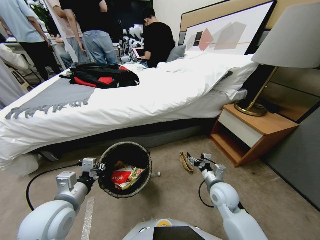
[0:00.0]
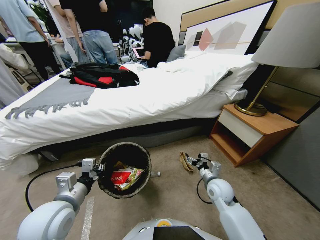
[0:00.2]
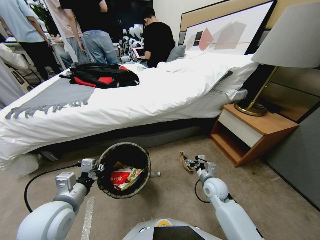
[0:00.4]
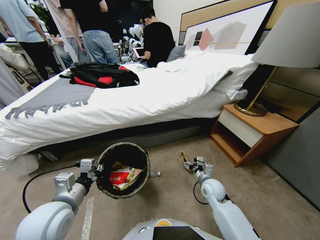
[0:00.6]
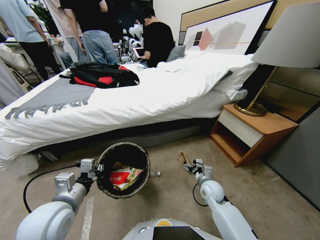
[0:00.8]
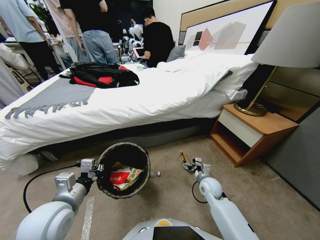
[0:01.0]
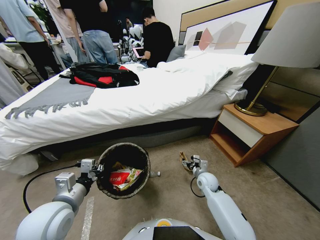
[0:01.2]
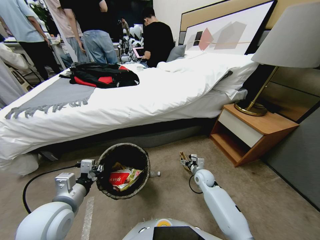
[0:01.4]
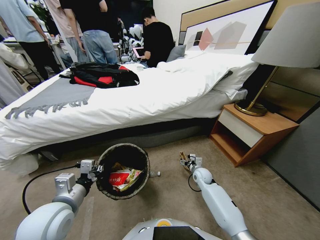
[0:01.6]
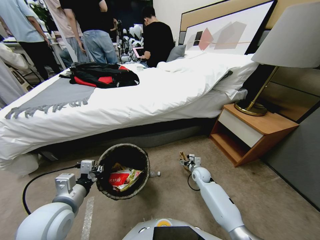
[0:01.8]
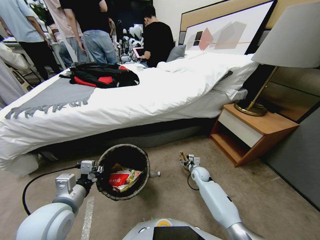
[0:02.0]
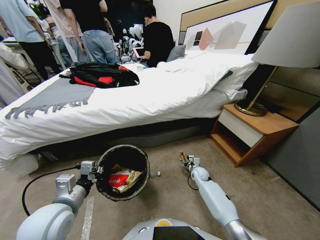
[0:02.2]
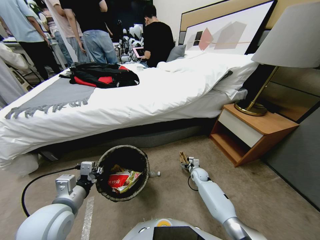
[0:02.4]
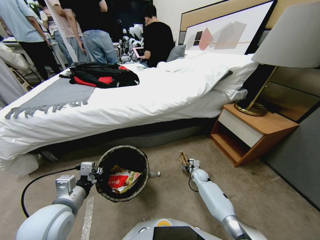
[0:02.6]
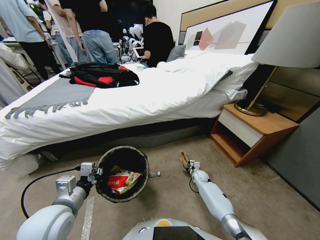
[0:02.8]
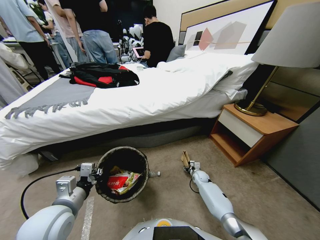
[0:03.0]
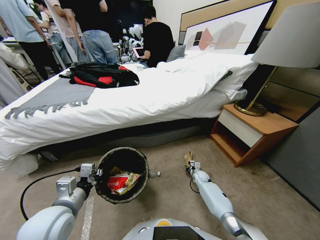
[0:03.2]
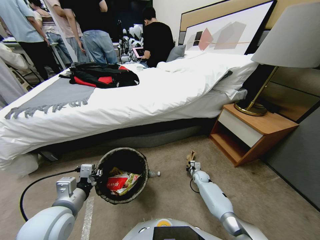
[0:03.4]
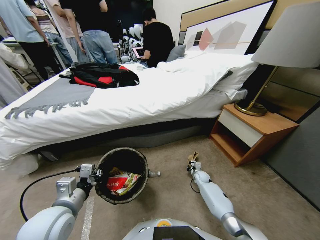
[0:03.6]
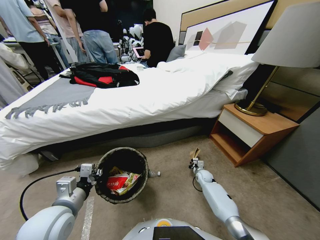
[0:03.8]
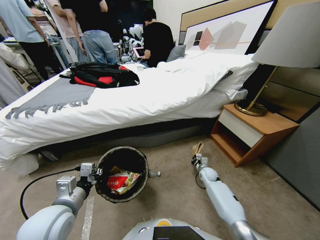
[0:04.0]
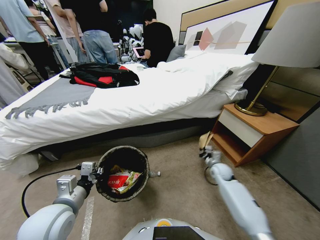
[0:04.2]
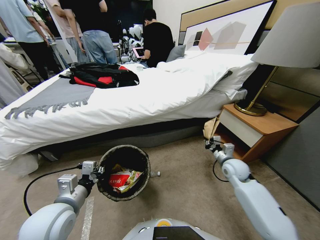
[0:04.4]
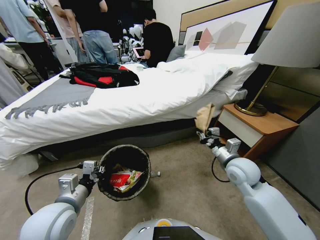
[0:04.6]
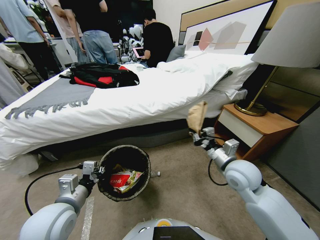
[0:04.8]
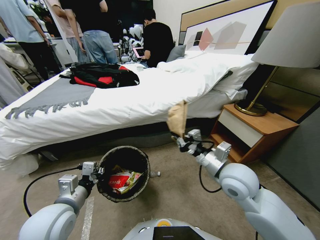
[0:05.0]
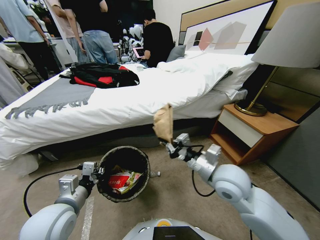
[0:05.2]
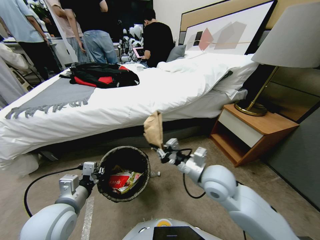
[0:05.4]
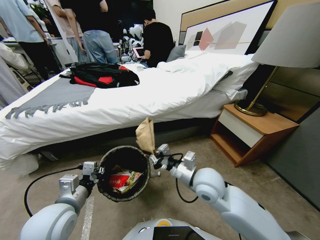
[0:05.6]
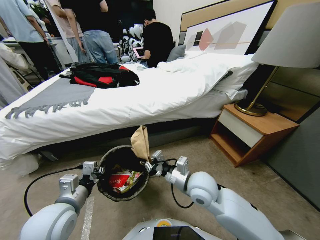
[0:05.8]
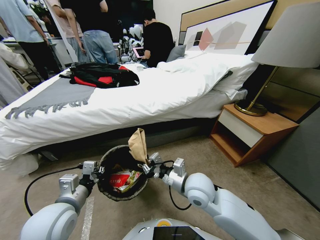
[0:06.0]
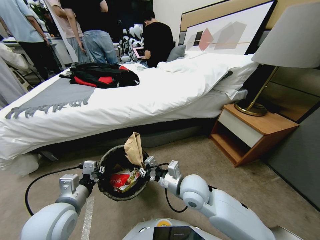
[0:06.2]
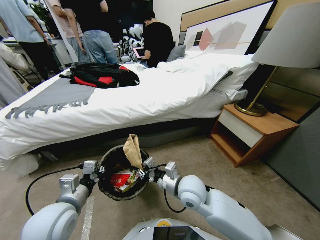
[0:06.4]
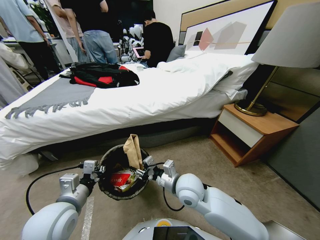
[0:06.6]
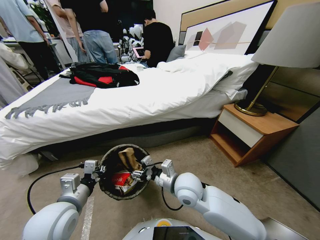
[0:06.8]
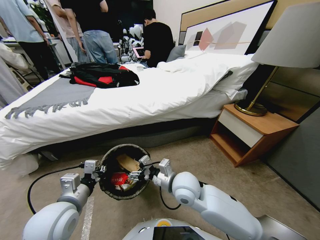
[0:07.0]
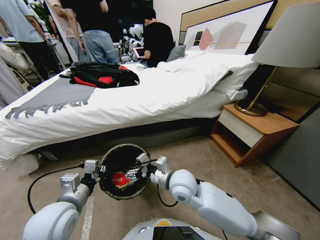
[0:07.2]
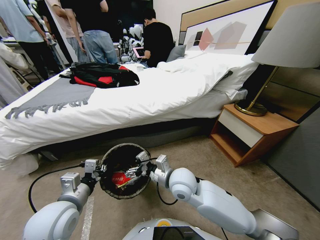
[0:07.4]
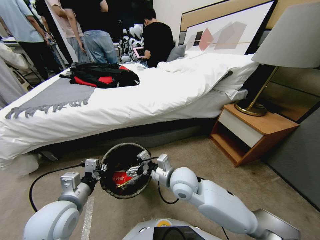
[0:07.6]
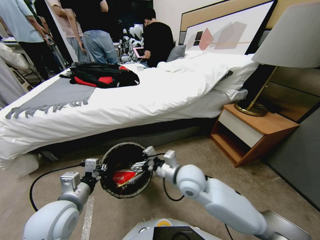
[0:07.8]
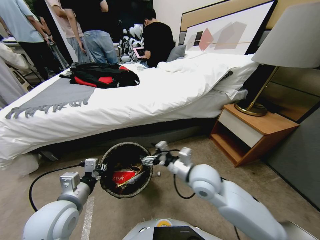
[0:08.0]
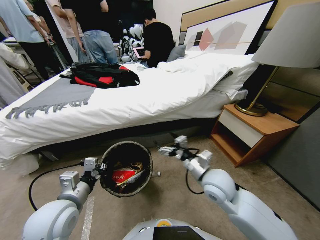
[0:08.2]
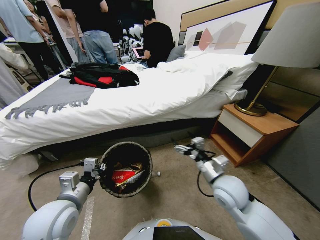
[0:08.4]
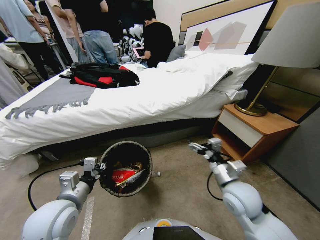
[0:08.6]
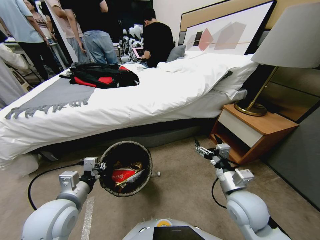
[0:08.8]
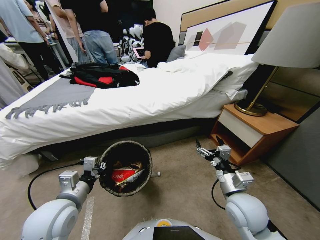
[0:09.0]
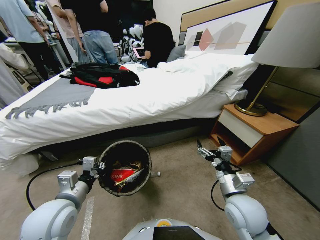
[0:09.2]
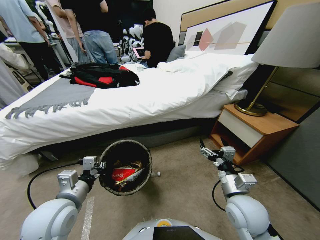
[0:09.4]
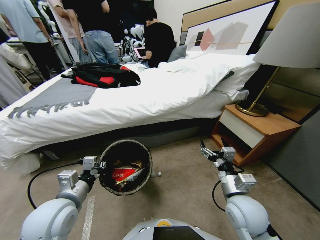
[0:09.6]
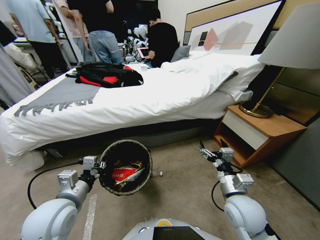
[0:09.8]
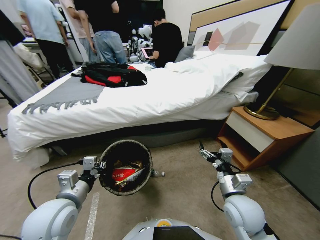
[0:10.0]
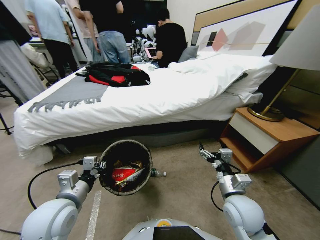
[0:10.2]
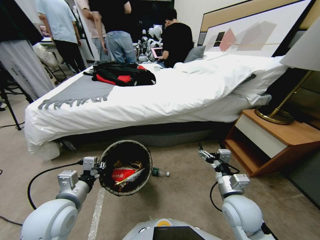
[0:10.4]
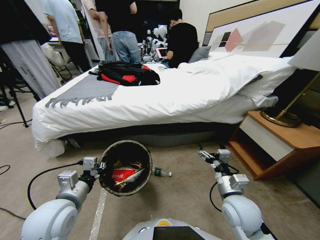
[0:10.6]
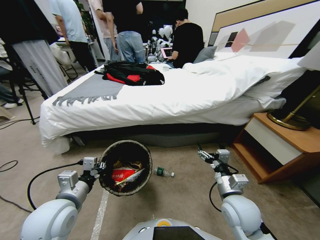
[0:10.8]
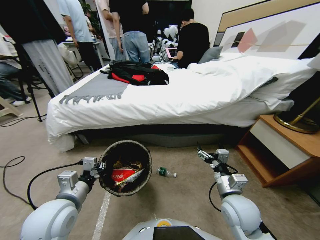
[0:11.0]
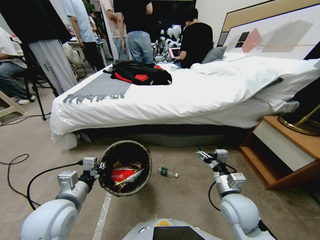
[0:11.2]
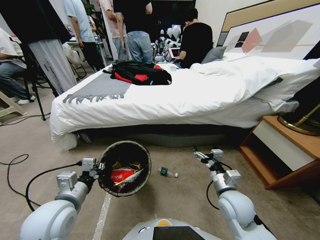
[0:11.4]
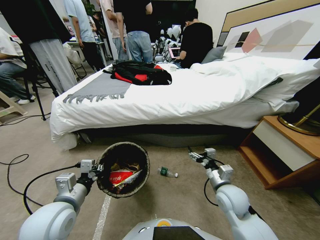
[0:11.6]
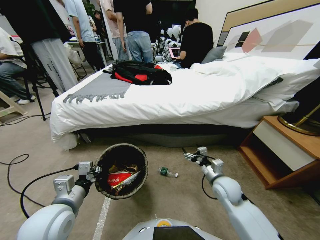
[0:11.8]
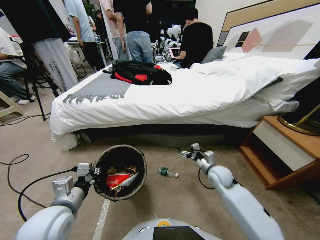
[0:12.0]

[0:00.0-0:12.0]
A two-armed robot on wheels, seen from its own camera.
Task of the whole recording: Pick up the trash bin, then pick up the garbage from the floor and place it into the trash bin.
0:00.0 to 0:01.6: The right gripper travels downward and forward by some 15 cm.
0:01.6 to 0:03.0: The right gripper travels downward by some 10 cm, and closes up.
0:03.0 to 0:04.4: The right gripper shifts approximately 30 cm upward, and closes.
0:04.4 to 0:06.0: The right gripper moves to the left, approximately 20 cm.
0:06.0 to 0:07.6: The right gripper opens up.
0:07.6 to 0:09.0: The right gripper heads to the right and backward, covering about 20 cm.
0:10.4 to 0:12.0: The right gripper moves forward and downward, some 20 cm.

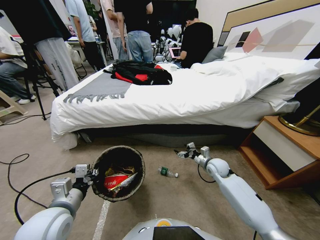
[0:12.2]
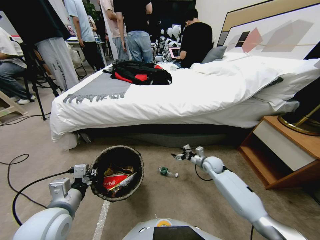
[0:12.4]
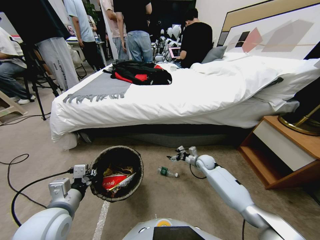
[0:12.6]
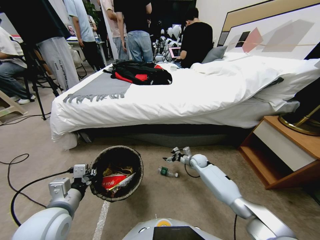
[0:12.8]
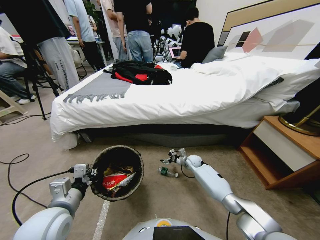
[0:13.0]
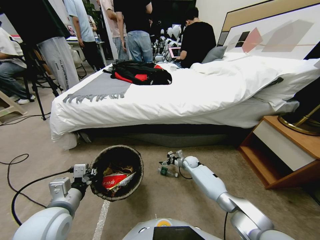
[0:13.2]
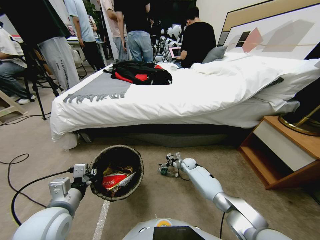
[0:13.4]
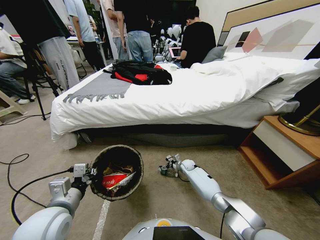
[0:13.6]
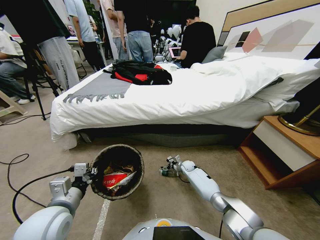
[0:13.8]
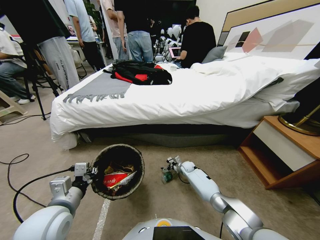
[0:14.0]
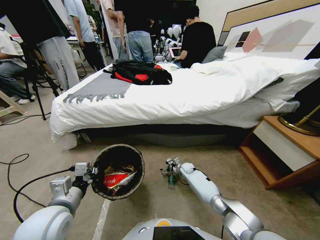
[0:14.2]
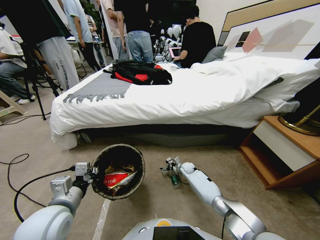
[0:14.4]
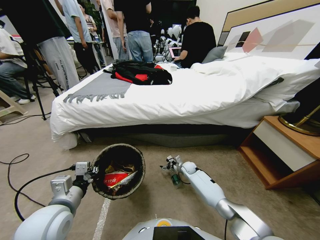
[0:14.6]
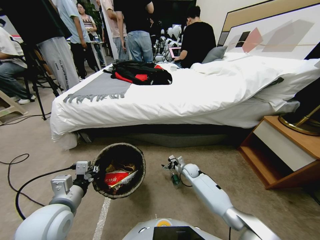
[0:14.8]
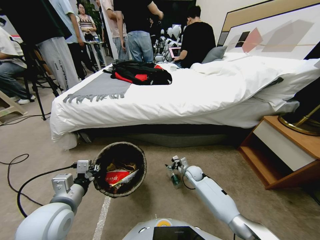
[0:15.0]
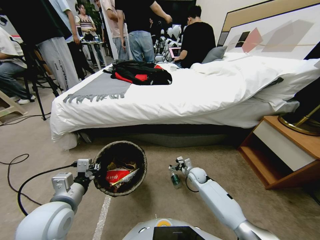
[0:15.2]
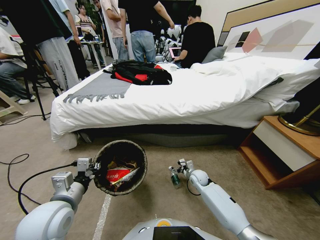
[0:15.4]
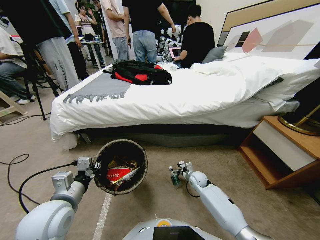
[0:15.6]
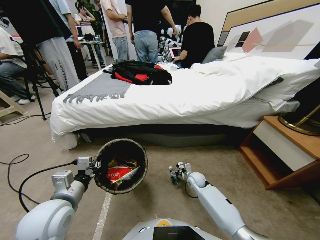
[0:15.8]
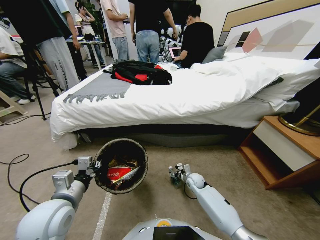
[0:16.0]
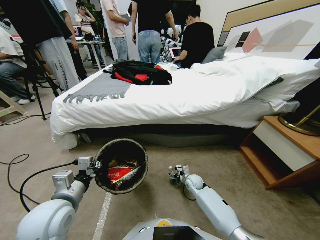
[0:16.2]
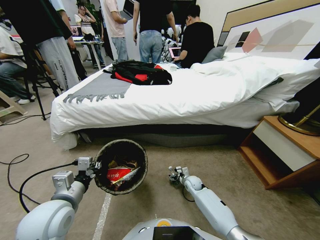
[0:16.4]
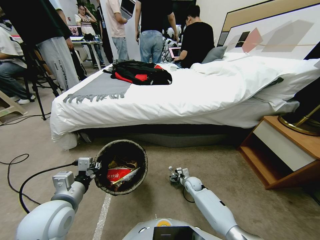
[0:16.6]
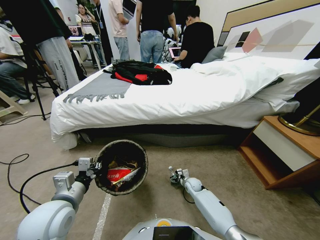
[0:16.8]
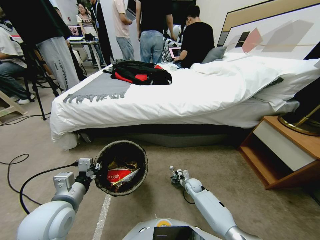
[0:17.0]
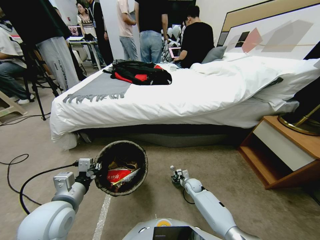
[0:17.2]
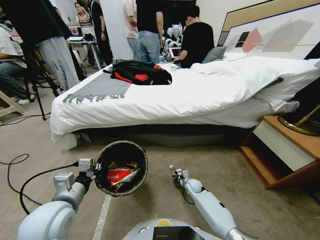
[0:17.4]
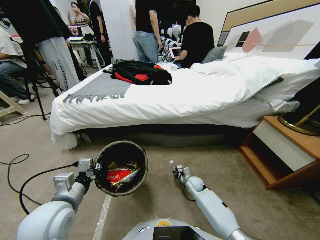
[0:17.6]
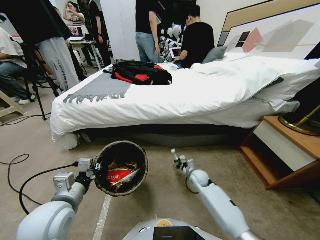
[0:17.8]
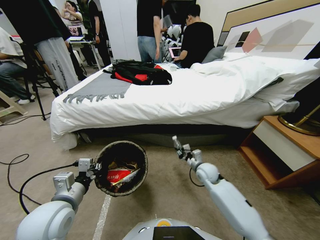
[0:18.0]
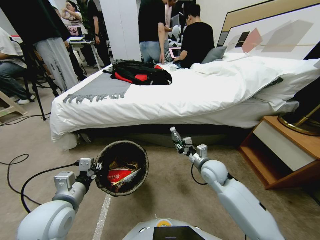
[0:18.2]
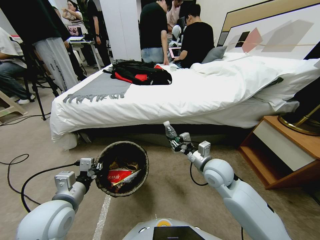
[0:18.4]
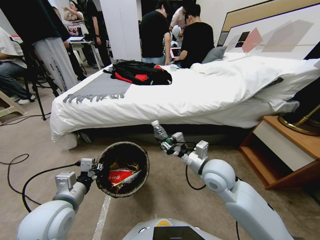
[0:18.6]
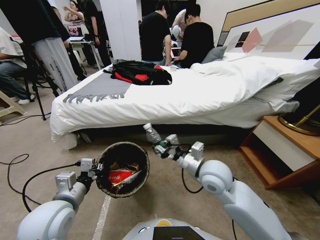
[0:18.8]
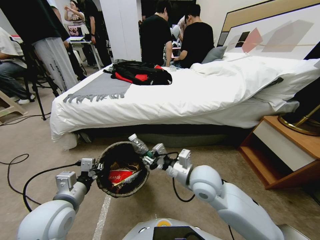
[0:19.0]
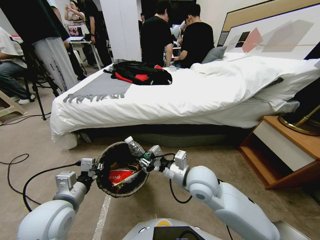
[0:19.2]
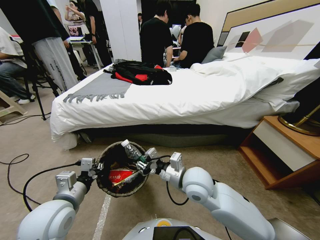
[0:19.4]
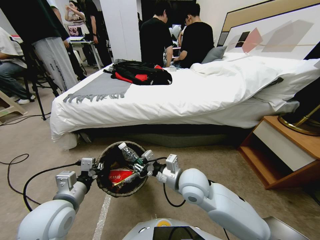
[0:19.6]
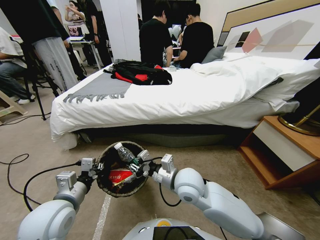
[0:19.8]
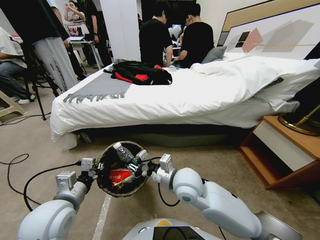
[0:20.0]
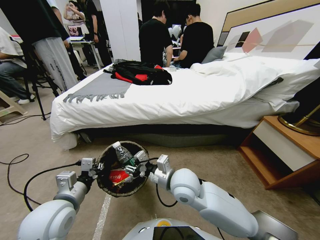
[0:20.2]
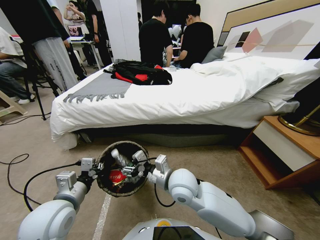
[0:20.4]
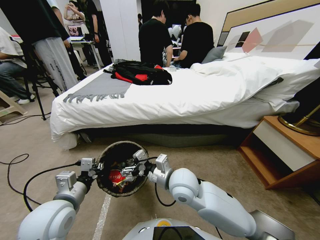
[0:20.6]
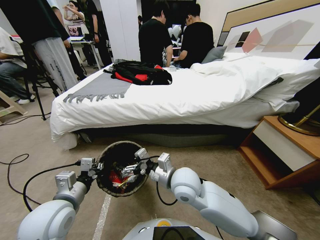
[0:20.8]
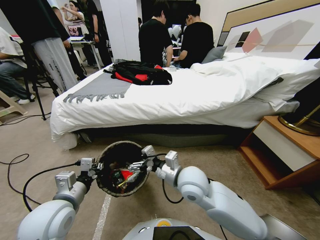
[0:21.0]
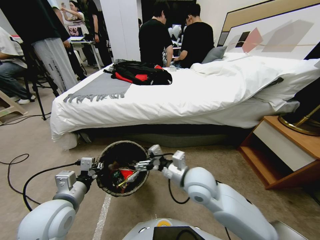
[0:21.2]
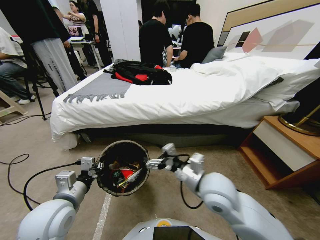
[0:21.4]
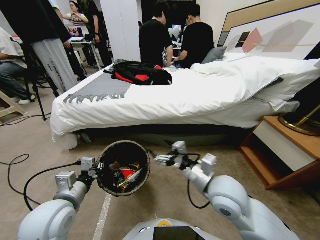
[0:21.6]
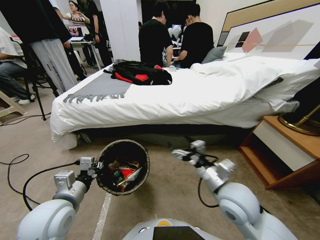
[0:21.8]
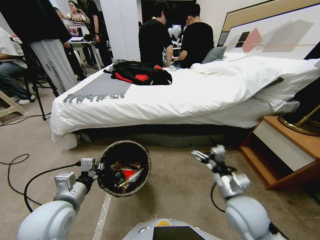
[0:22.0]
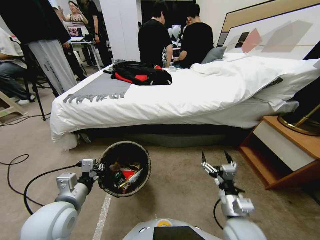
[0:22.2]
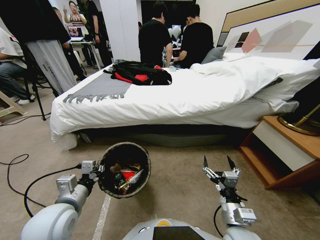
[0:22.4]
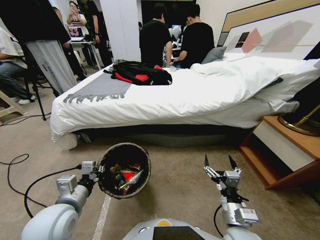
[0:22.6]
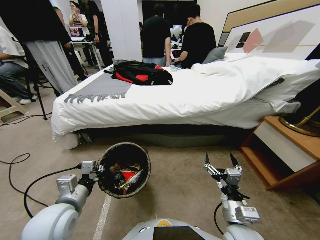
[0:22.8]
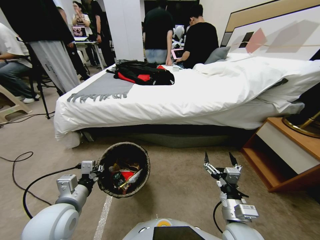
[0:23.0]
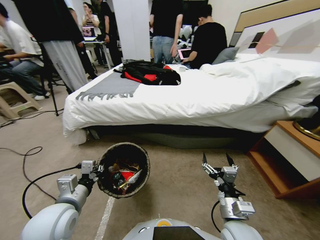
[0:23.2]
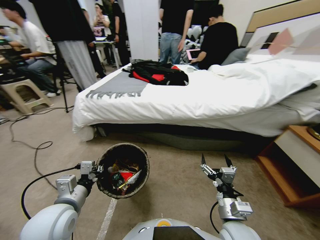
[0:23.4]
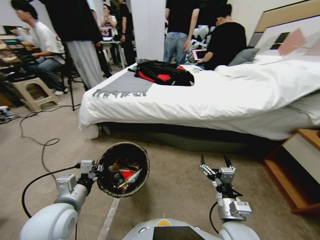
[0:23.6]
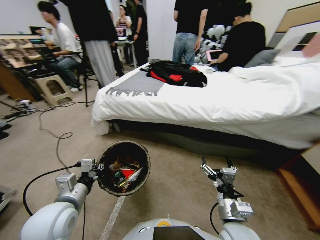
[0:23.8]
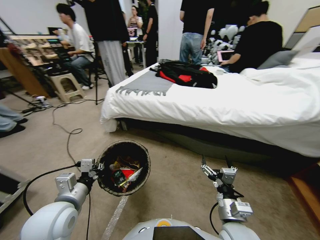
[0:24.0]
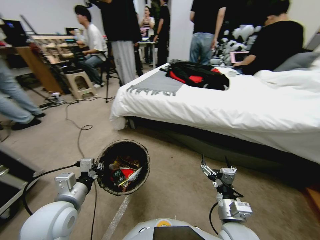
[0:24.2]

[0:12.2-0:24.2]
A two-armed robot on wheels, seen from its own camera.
Task of the whole recording: Pick up the trash bin, then pick up the garbage from the floor and place it into the trash bin.
0:12.2 to 0:13.8: The right gripper moves downward, to the left and forward, about 20 cm.
0:13.8 to 0:15.2: The right gripper moves backward and upward, some 10 cm.
0:15.2 to 0:16.6: The right gripper shifts some 10 cm downward.
0:16.6 to 0:18.2: The right gripper moves upward, approximately 30 cm, and closes up.
0:18.2 to 0:19.8: The right gripper goes about 15 cm to the left and backward.
0:19.8 to 0:21.2: The right gripper moves to the right, approximately 5 cm, and opens.
0:21.2 to 0:22.6: The right gripper travels backward, downward and to the right by roughly 15 cm.
